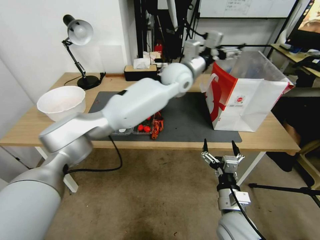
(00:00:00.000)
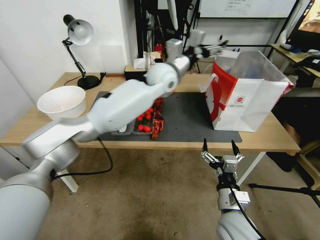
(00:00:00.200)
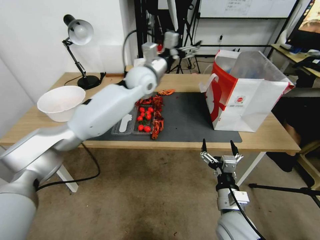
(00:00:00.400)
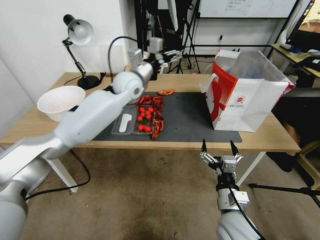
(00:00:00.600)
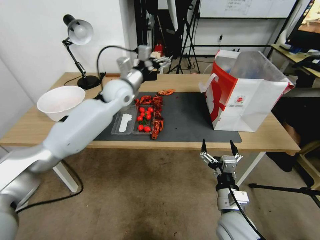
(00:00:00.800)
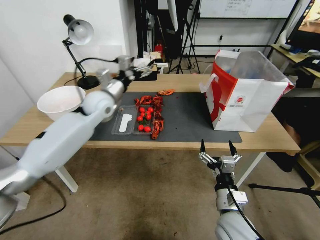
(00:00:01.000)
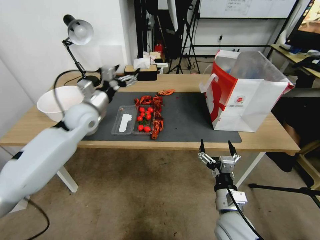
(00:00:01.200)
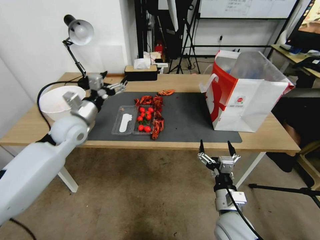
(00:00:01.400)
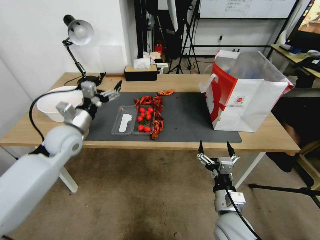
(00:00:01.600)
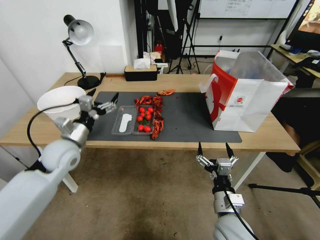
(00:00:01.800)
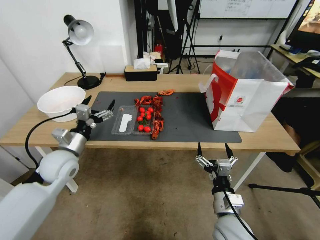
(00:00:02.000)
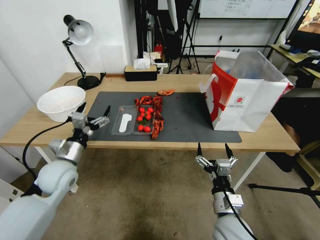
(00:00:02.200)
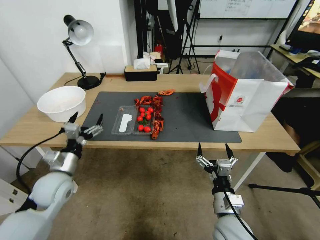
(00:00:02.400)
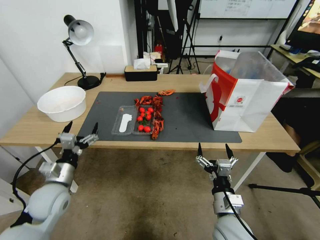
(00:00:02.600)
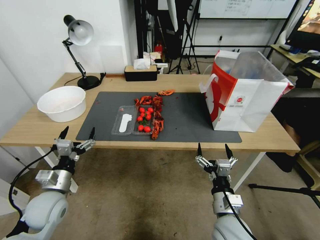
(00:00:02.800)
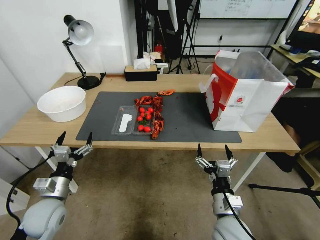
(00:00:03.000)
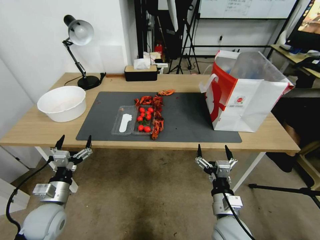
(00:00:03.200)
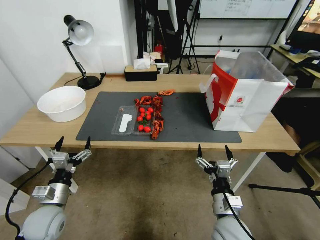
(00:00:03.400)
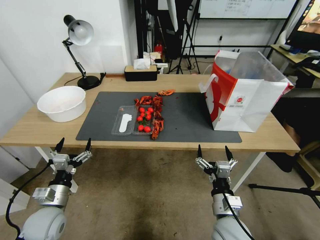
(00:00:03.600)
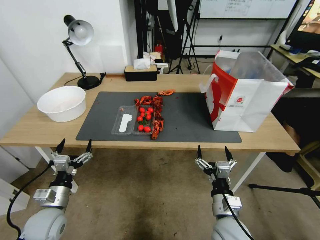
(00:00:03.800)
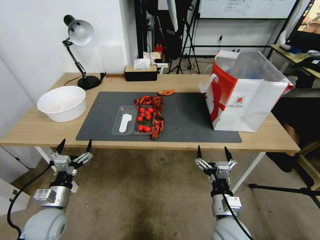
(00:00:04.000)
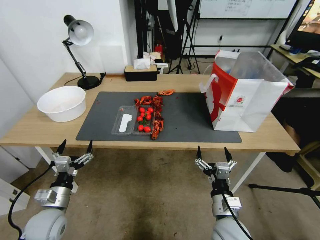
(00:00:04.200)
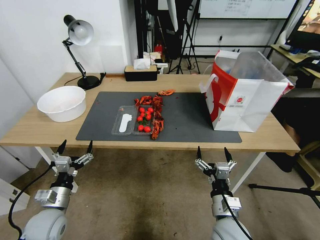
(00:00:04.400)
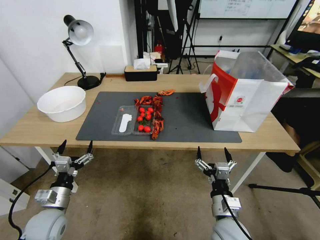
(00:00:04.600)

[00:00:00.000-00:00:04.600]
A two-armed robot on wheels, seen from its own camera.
00:00:00.000 to 00:00:01.600: The left gripper moves to the left and backward, some 35 cm.
00:00:01.600 to 00:00:03.000: The left gripper moves backward and downward, some 25 cm.
00:00:03.000 to 00:00:04.600: There are only small adjustments of the grippers.
